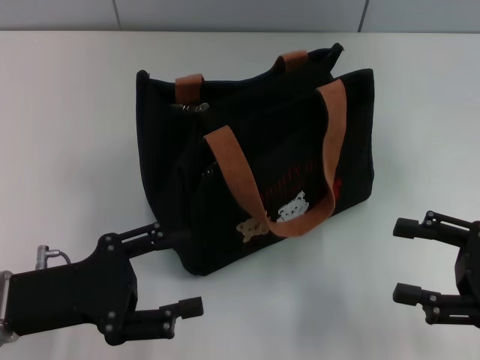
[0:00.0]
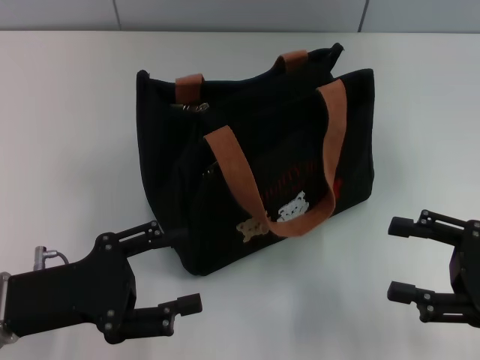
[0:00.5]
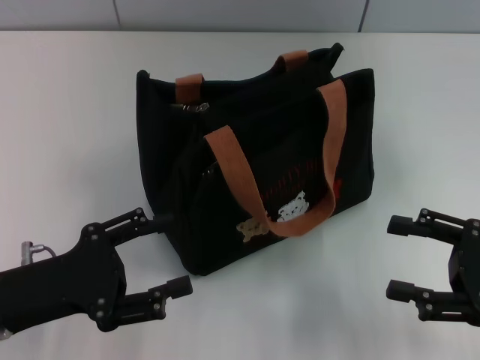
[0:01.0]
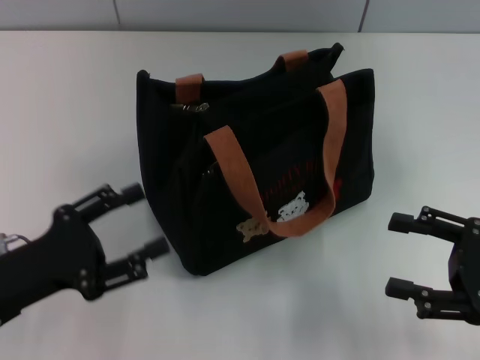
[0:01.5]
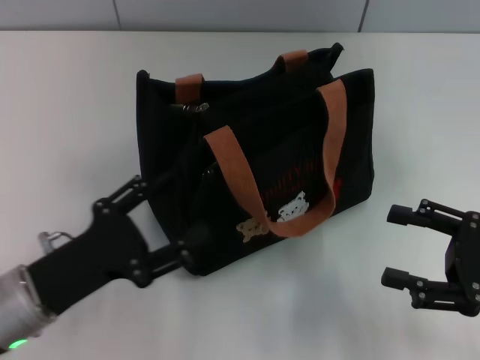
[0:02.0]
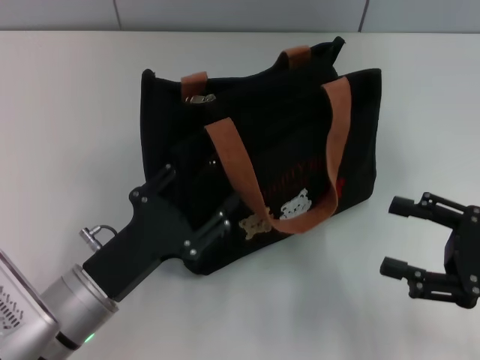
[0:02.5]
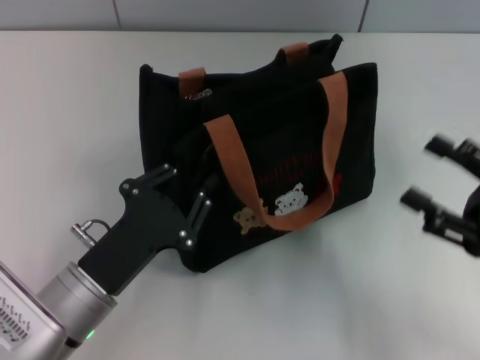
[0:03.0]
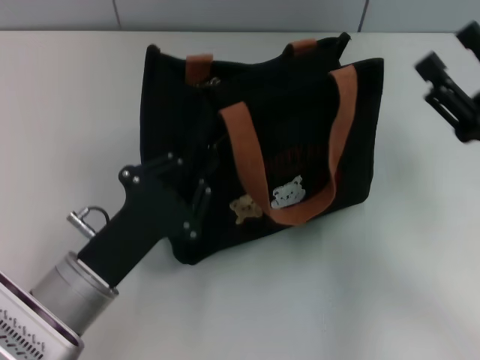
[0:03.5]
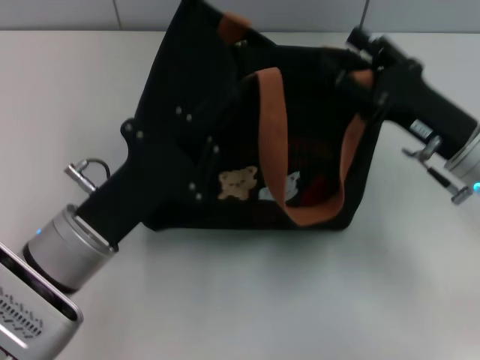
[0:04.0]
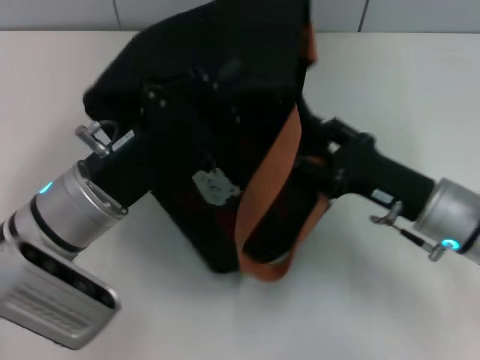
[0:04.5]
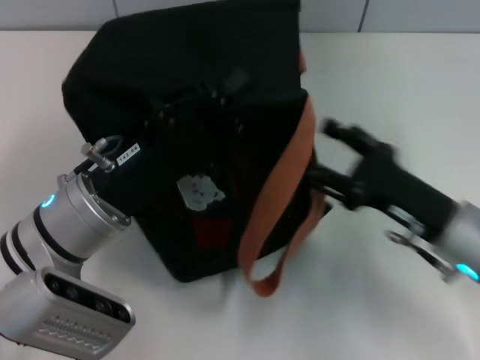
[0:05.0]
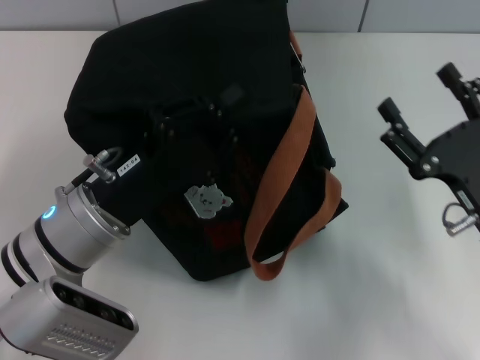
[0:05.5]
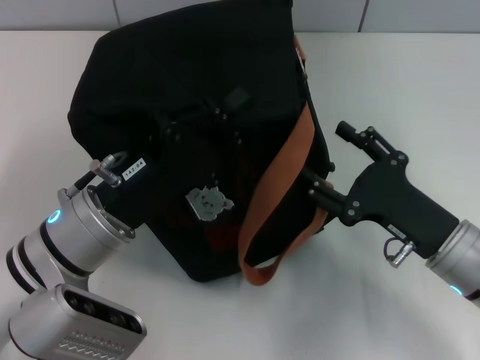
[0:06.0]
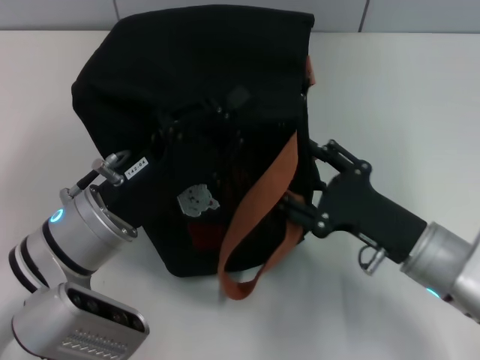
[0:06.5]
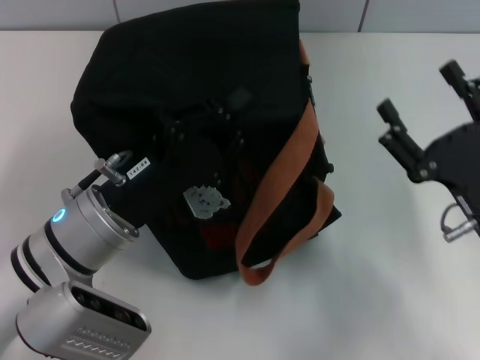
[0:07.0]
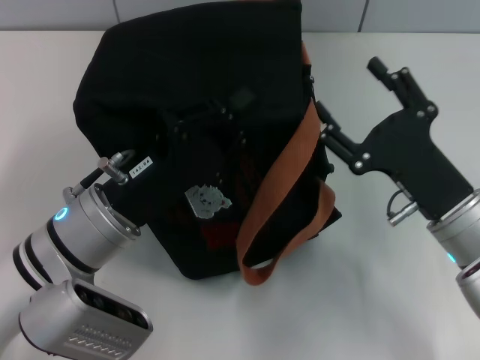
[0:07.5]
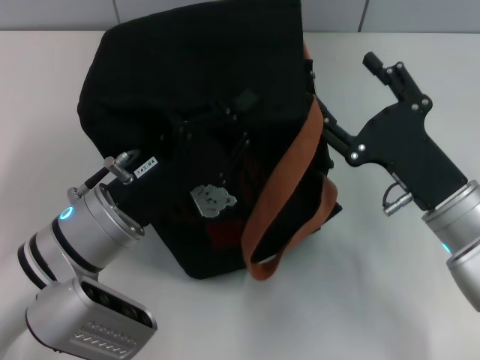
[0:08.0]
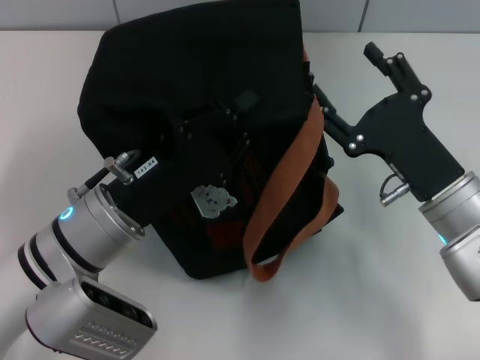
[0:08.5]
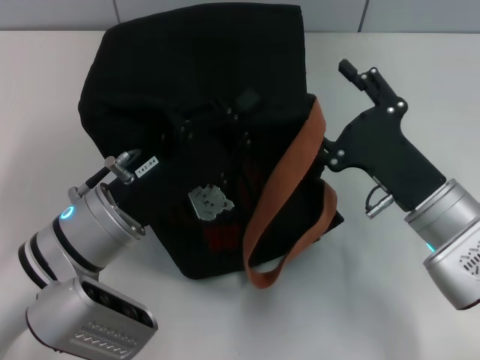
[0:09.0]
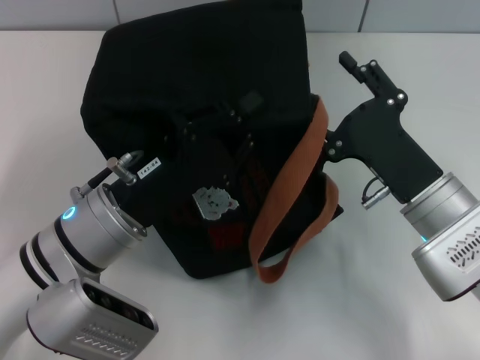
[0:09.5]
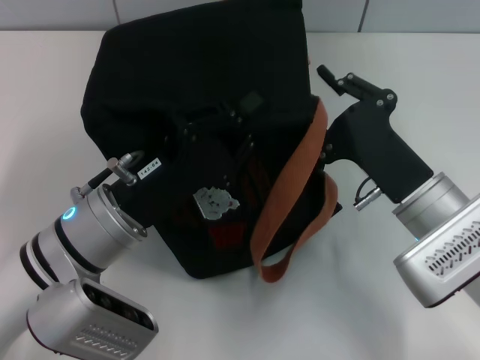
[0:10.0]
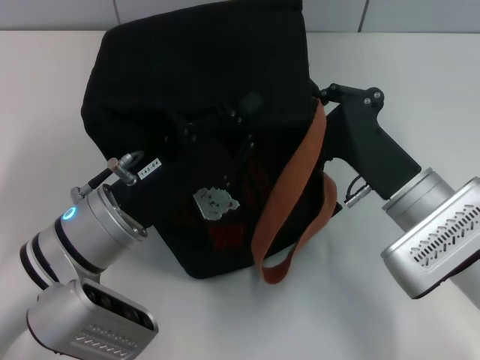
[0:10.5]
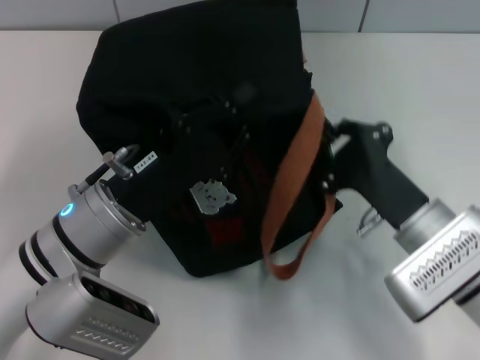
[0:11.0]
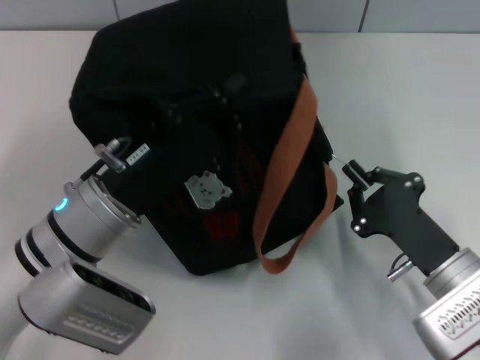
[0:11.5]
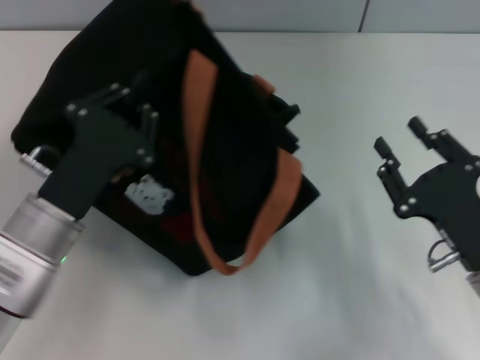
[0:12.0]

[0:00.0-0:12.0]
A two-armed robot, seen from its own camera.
Step, 0:00.0 to 0:11.5: Pull open the zipper with your right hand.
0:02.0 to 0:04.0: The right gripper is displaced forward and to the left by about 15 cm. Meanwhile the left gripper goes roughly 5 cm to the right, and closes up.
0:04.0 to 0:06.0: The right gripper goes approximately 10 cm backward and downward.
0:08.0 to 0:10.0: The right gripper closes.
0:10.0 to 0:12.0: The right gripper shifts approximately 10 cm backward and to the right.

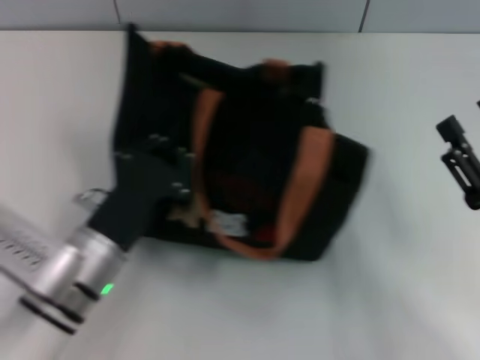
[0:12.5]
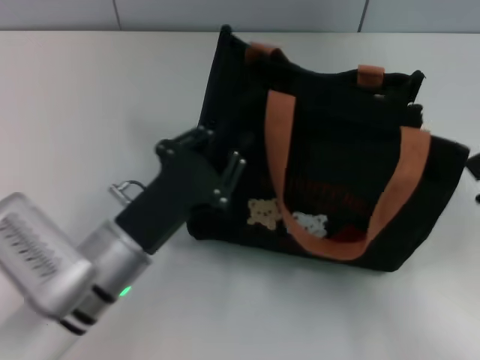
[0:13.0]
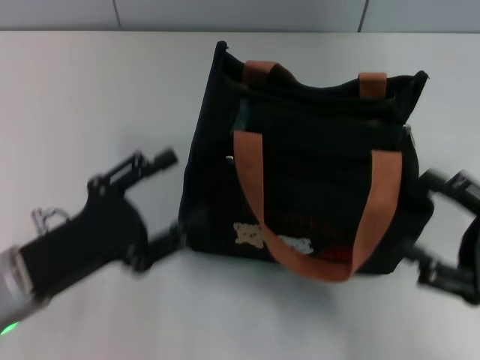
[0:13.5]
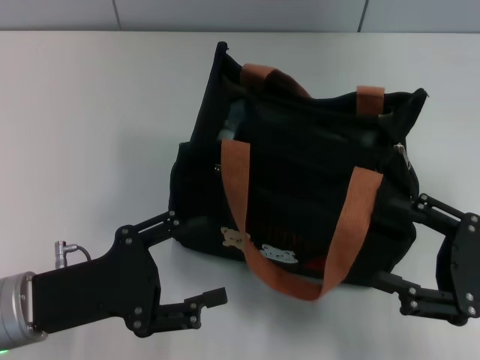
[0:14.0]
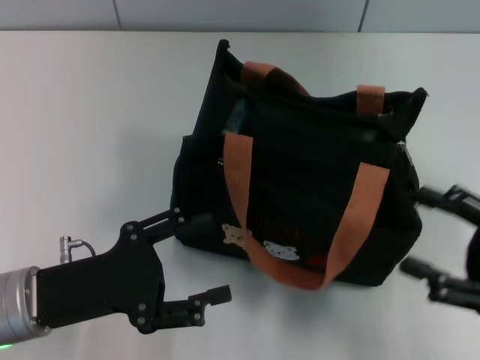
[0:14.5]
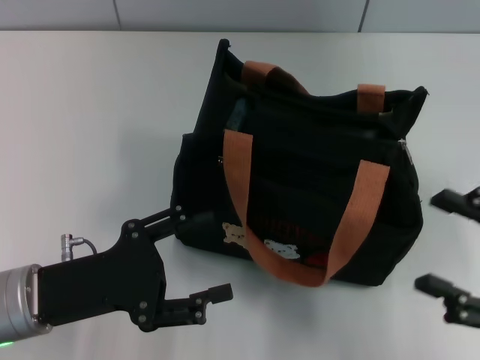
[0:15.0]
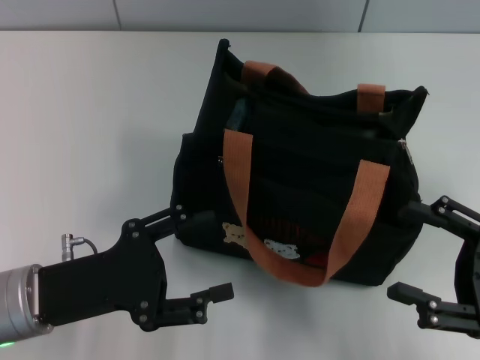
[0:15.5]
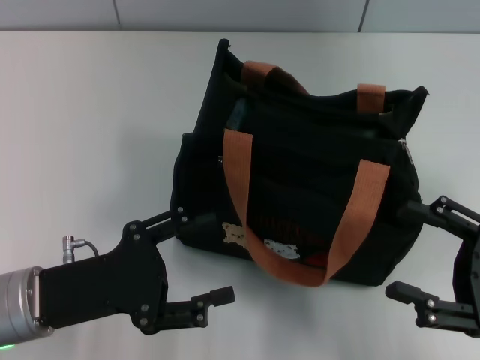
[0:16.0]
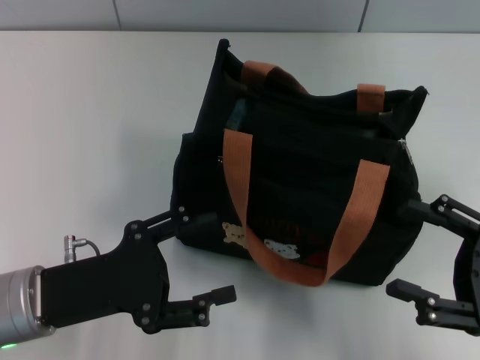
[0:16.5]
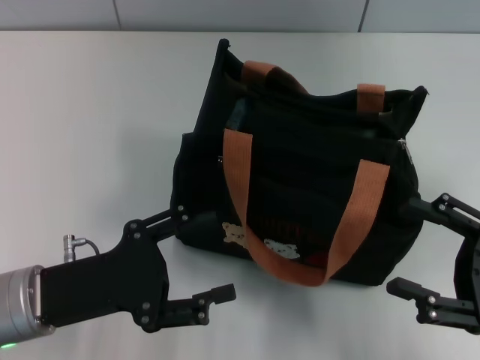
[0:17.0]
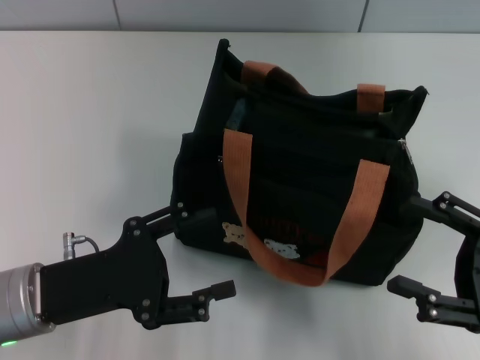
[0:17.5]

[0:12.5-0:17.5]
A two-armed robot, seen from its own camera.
0:12.5 to 0:15.0: The left gripper goes about 5 cm to the left, and opens up.
0:15.0 to 0:17.5: The grippers make only small movements.

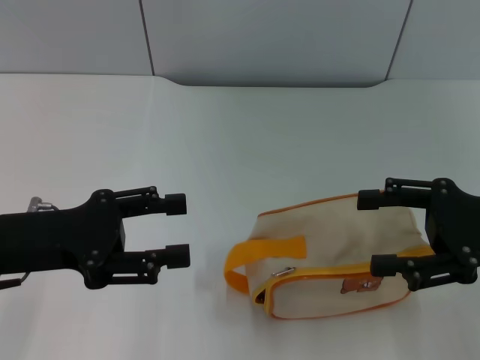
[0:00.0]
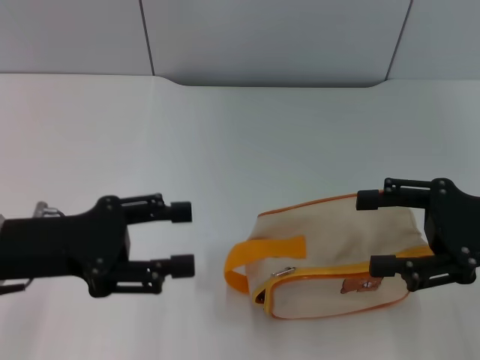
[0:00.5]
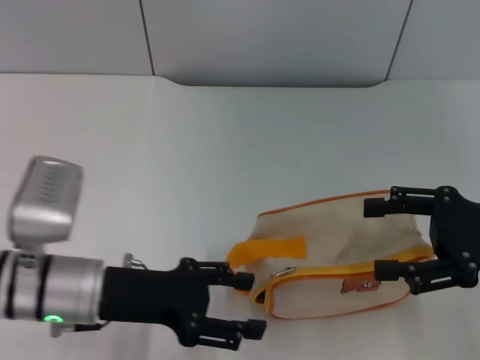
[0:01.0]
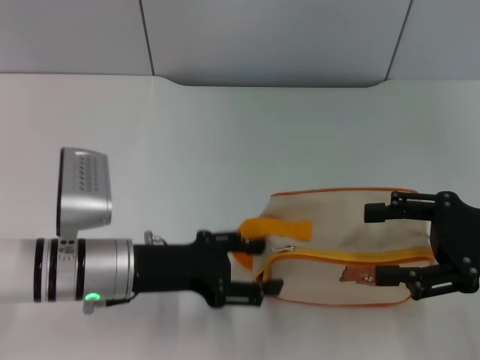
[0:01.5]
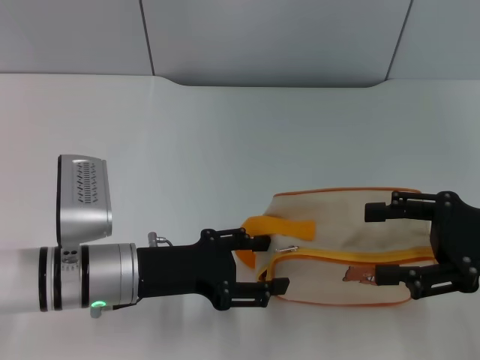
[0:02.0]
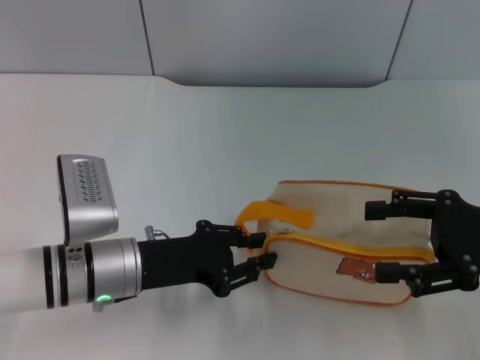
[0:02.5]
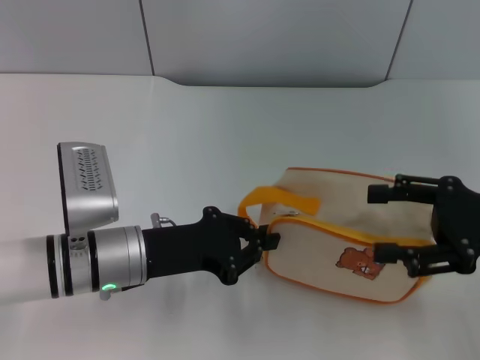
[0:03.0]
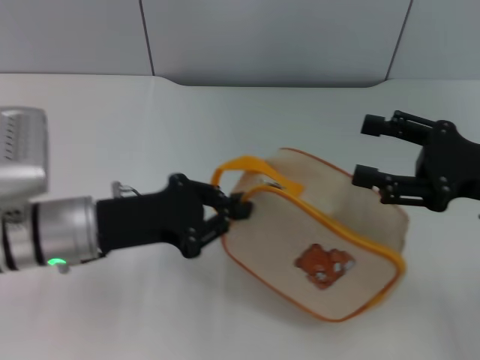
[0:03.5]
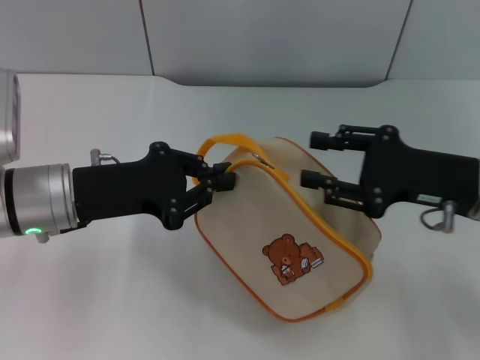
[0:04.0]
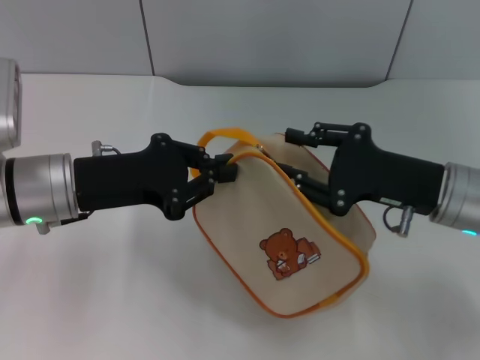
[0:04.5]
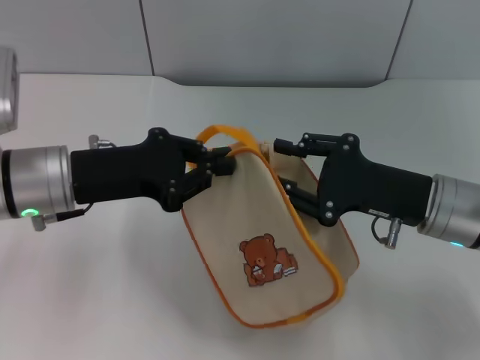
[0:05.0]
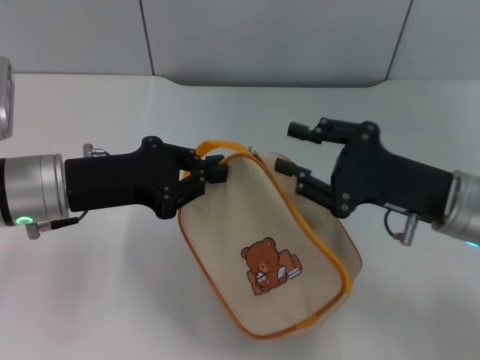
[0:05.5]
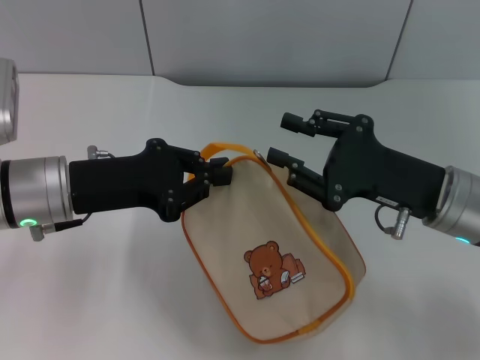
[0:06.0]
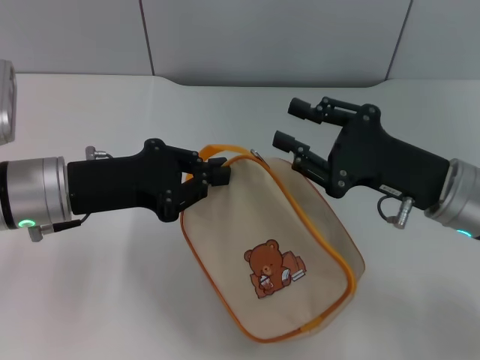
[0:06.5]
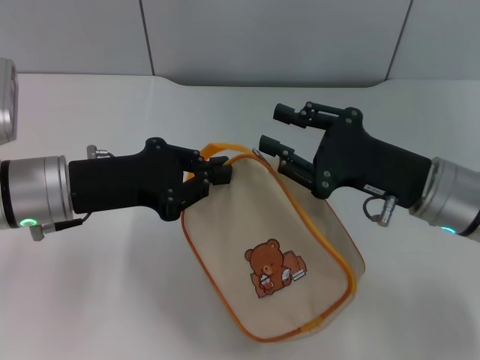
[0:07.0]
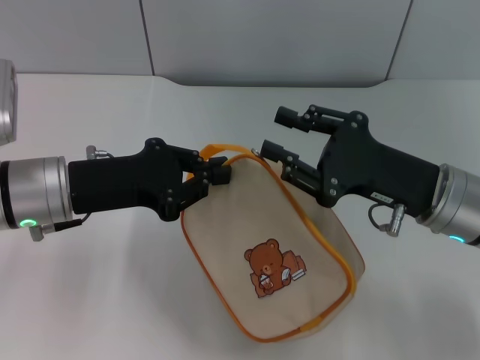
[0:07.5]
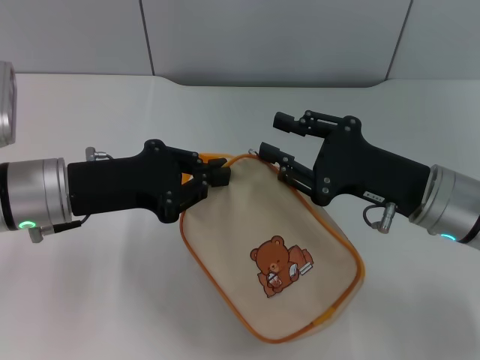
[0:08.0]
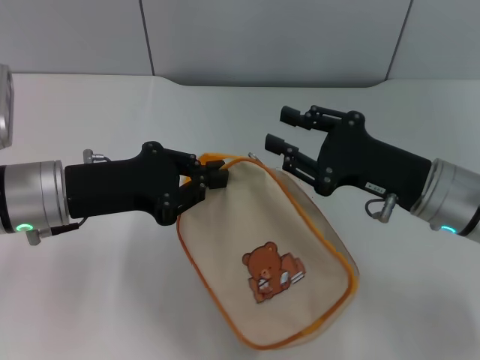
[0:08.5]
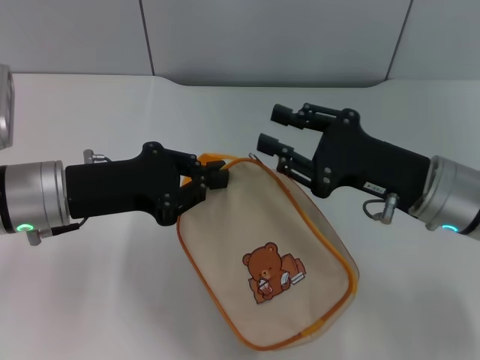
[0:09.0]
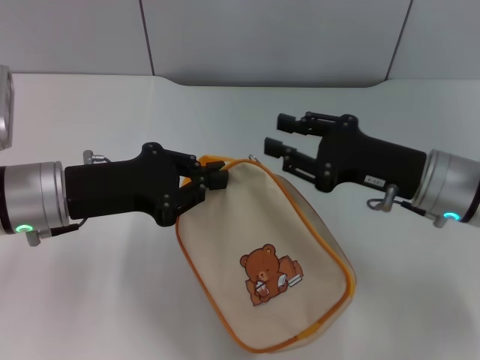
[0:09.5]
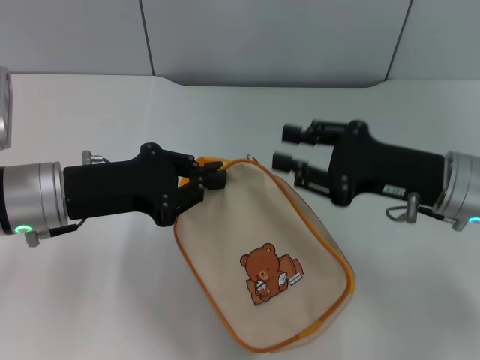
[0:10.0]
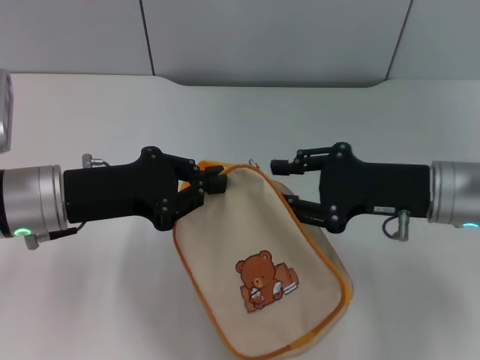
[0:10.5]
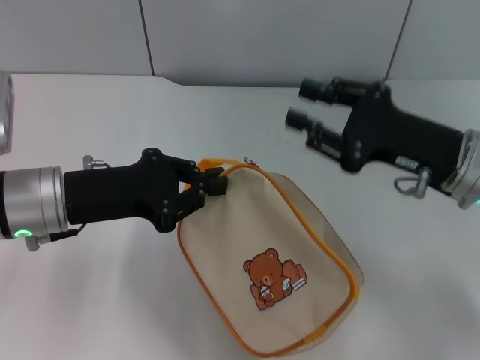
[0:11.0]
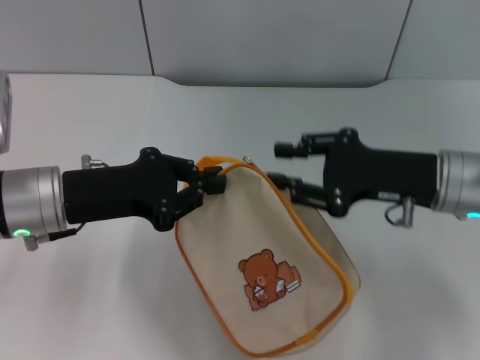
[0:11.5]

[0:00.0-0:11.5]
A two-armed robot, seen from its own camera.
Step, 0:00.0 to 0:03.5: Pick up the bag with left gripper.
0:00.0 to 0:02.0: The left gripper goes about 10 cm to the right and downward.
0:02.0 to 0:04.0: The right gripper heads to the left, covering some 5 cm, while the left gripper shifts about 5 cm upward, and closes up.
0:04.0 to 0:06.0: The right gripper closes its fingers.
0:06.0 to 0:09.5: There are only small adjustments of the grippers.
0:09.5 to 0:11.5: The grippers make only small movements.
